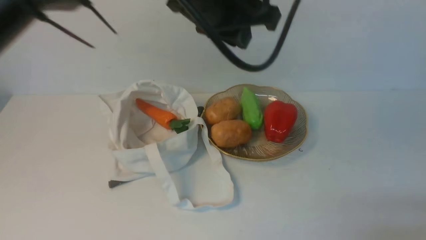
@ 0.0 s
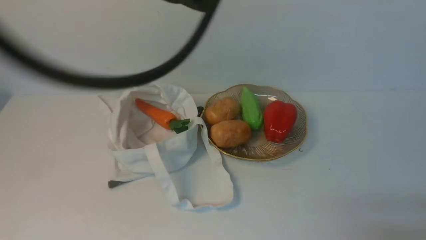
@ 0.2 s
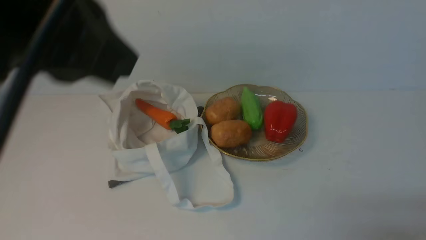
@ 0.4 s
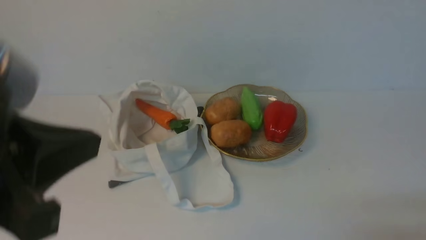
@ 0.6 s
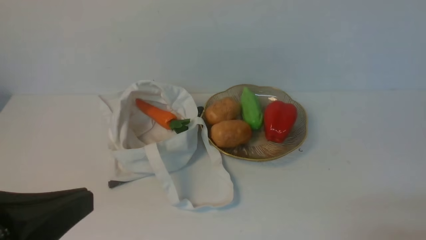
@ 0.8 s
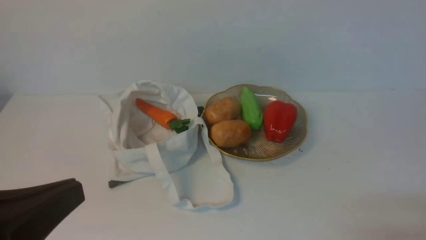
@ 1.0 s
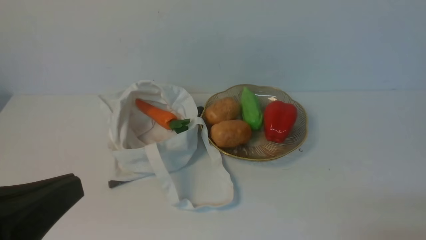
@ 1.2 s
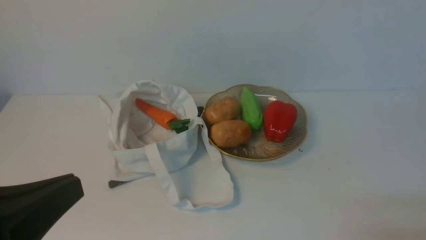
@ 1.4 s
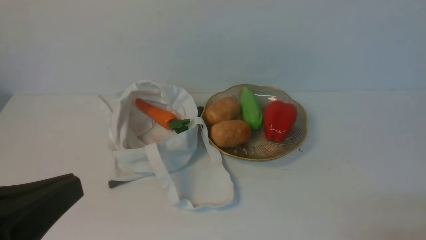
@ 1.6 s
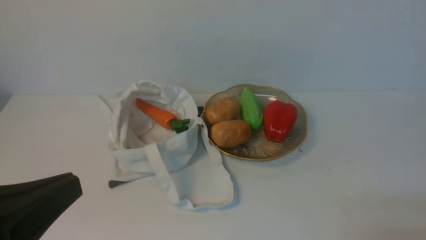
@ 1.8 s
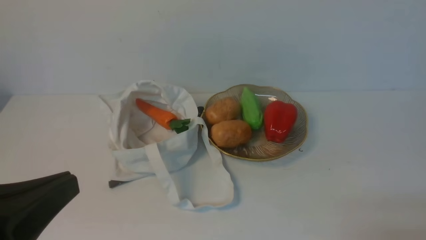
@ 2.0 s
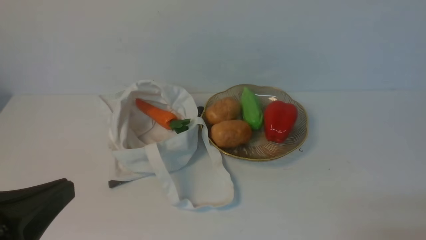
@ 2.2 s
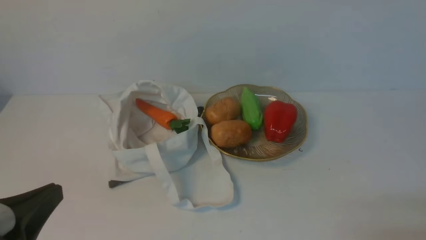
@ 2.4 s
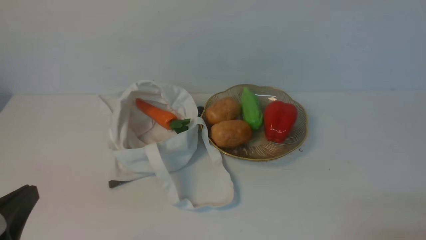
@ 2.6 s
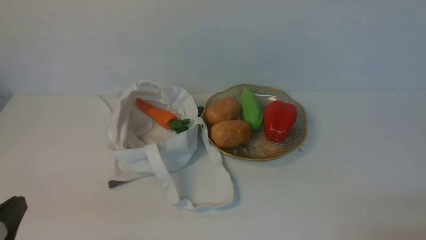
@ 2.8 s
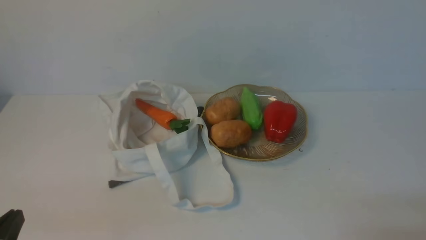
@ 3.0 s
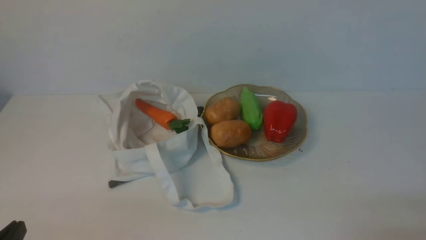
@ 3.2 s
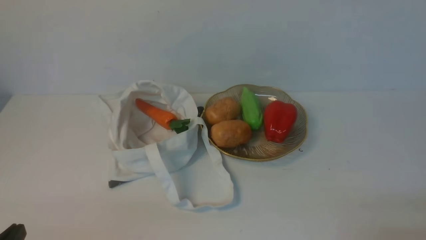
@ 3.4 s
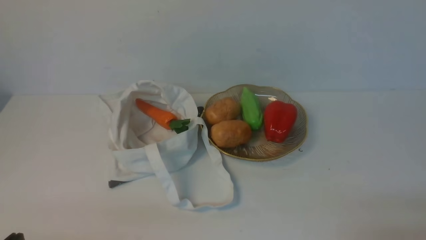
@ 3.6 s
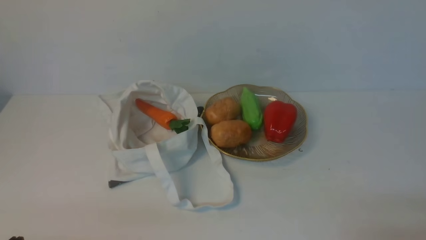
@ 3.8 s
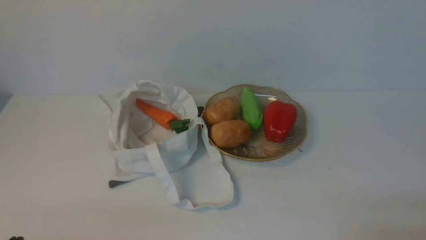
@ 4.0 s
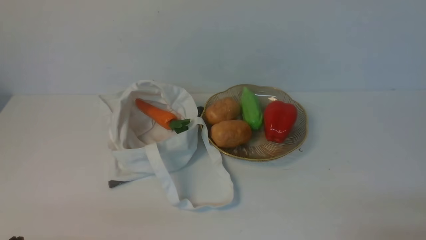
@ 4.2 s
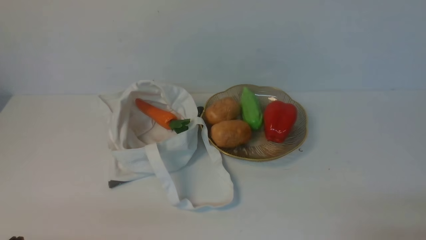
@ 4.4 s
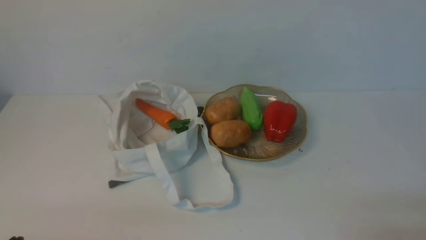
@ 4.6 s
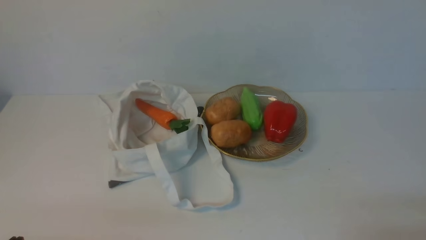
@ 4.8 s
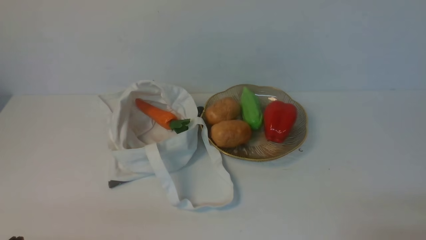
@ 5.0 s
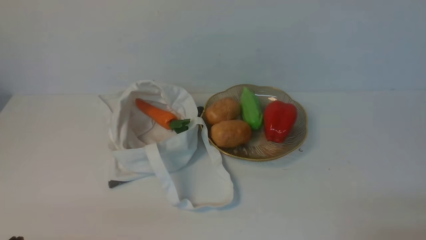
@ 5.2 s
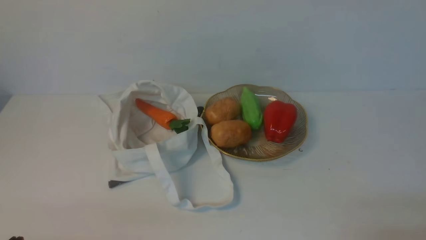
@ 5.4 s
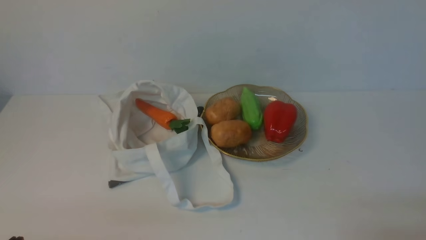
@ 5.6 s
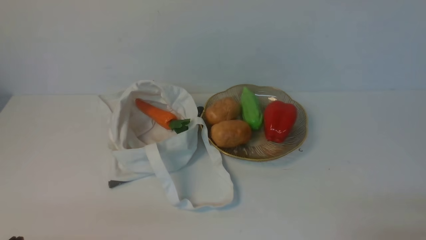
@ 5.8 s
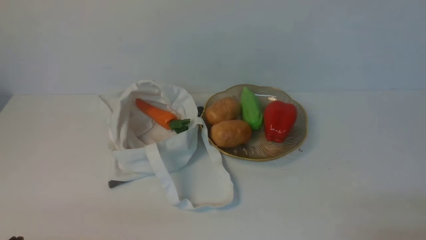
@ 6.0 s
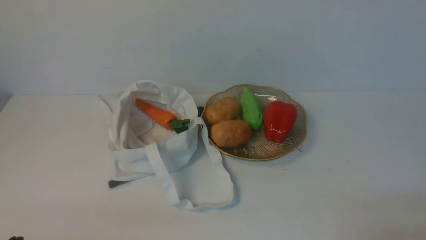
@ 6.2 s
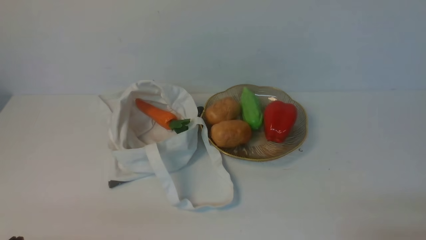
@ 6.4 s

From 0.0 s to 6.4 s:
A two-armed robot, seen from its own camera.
Task of the whole recording: take vegetables from cloth bag on white table place on plate.
From 0.0 s to 1.6 s: The left gripper heads backward and to the left, covering some 35 cm, and closes up.
From 1.6 s to 3.2 s: The left gripper travels downward by approximately 15 cm.
From 4.8 s to 6.4 s: Neither gripper changes place.

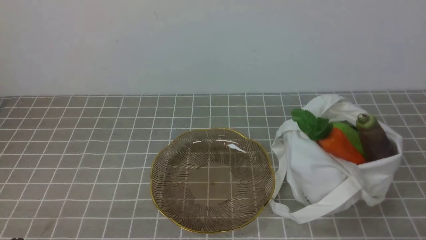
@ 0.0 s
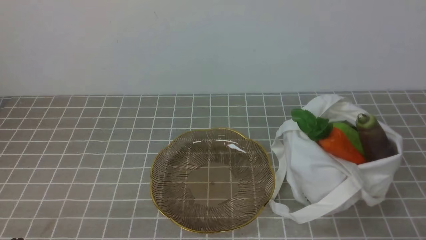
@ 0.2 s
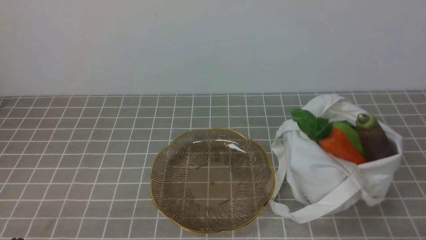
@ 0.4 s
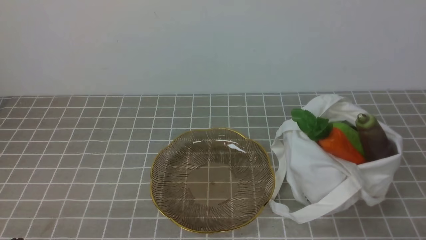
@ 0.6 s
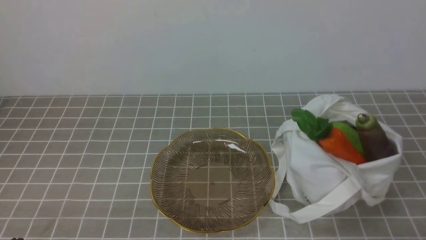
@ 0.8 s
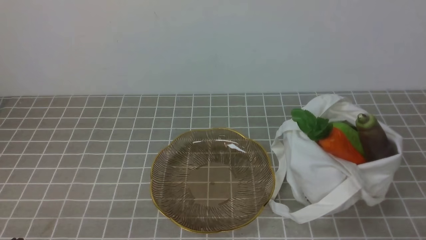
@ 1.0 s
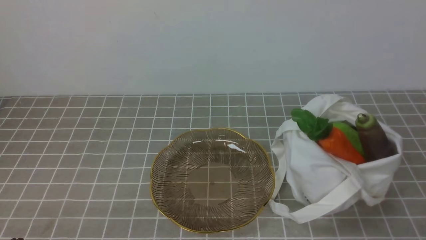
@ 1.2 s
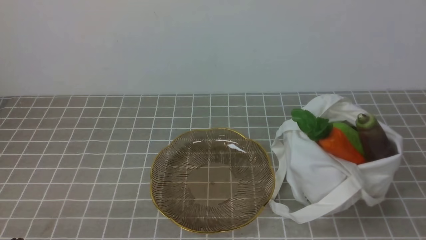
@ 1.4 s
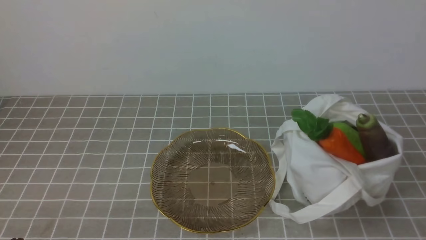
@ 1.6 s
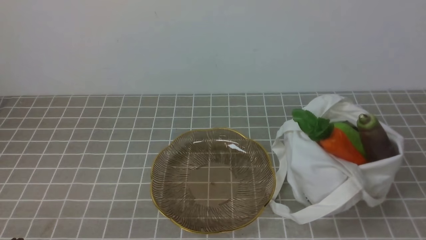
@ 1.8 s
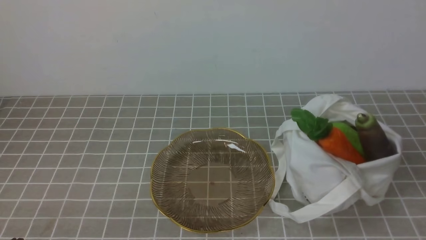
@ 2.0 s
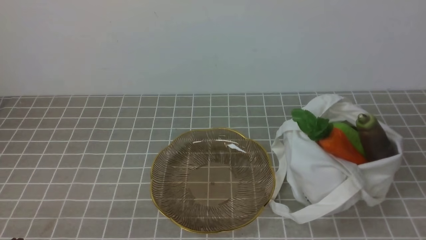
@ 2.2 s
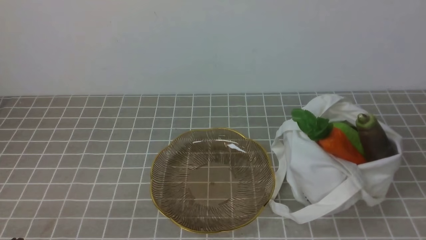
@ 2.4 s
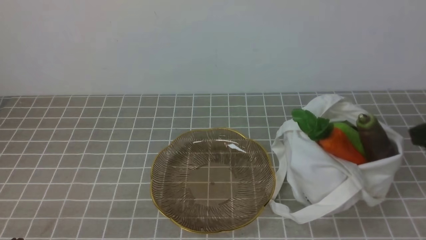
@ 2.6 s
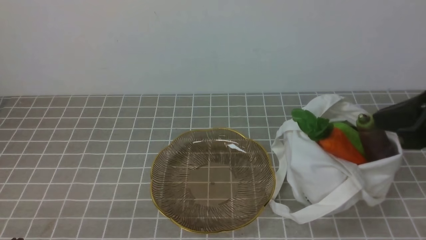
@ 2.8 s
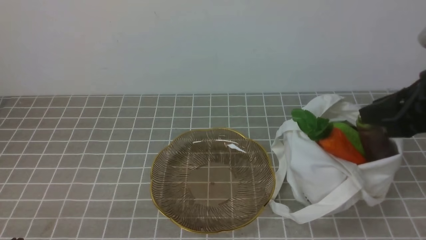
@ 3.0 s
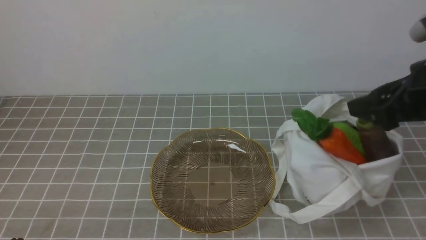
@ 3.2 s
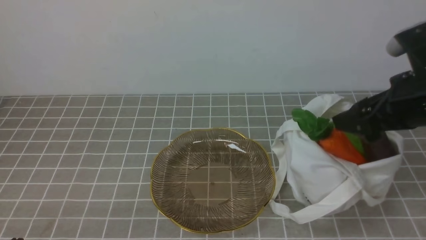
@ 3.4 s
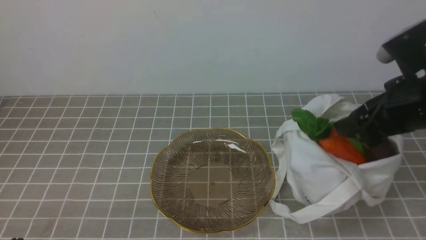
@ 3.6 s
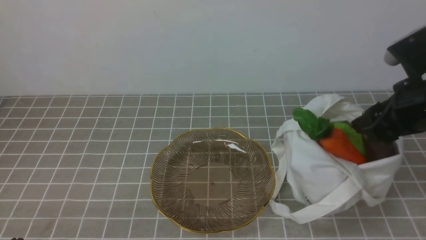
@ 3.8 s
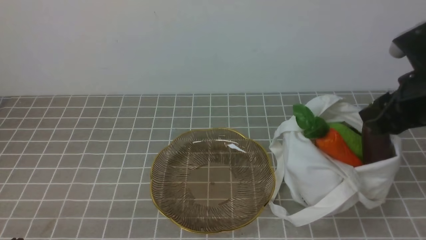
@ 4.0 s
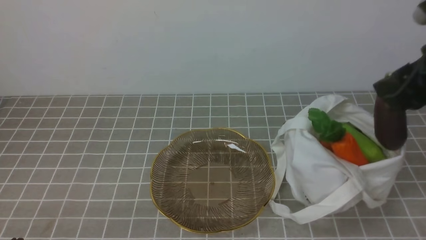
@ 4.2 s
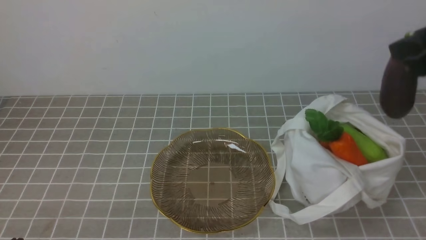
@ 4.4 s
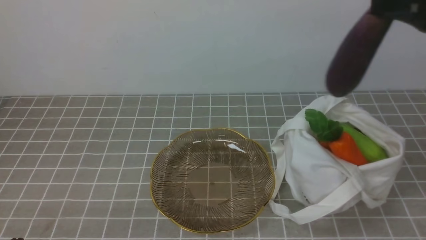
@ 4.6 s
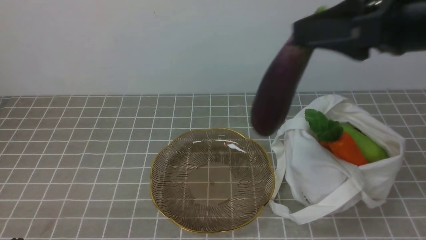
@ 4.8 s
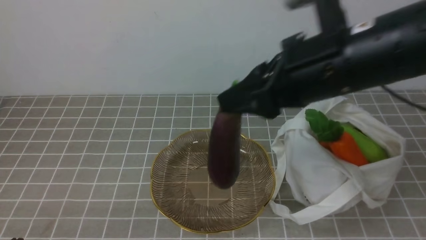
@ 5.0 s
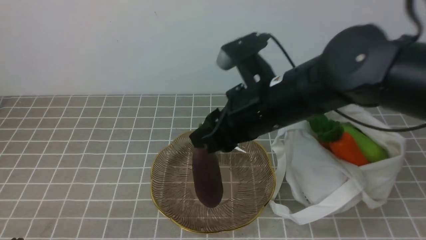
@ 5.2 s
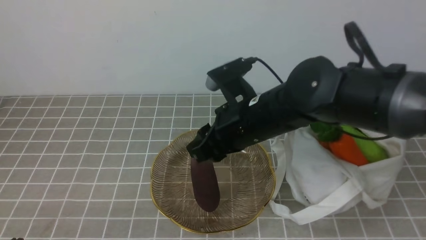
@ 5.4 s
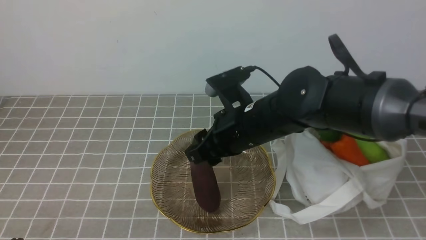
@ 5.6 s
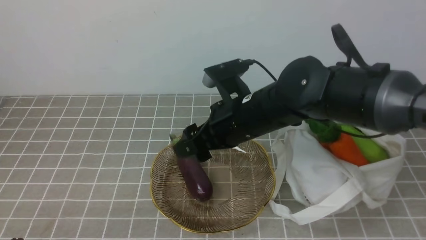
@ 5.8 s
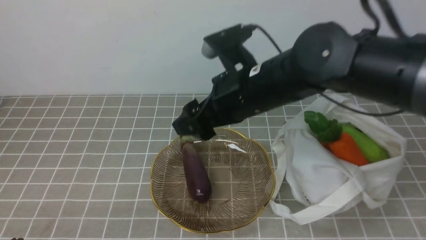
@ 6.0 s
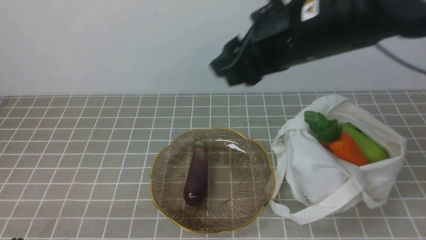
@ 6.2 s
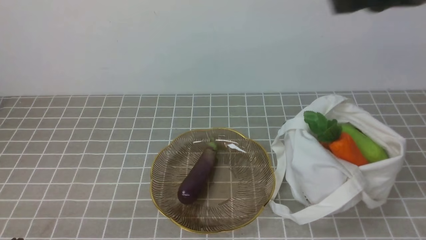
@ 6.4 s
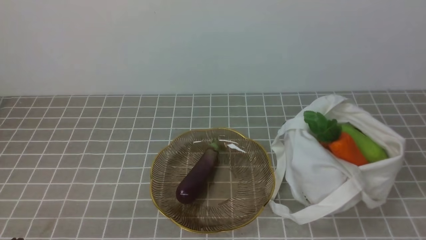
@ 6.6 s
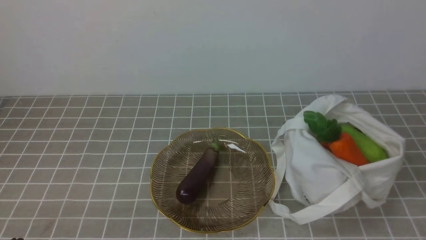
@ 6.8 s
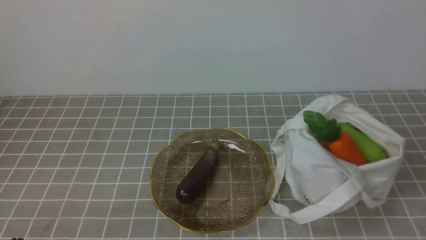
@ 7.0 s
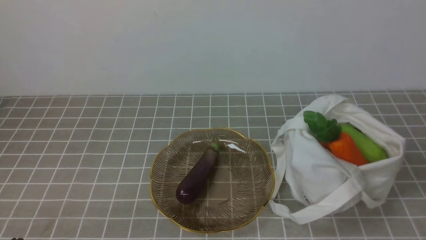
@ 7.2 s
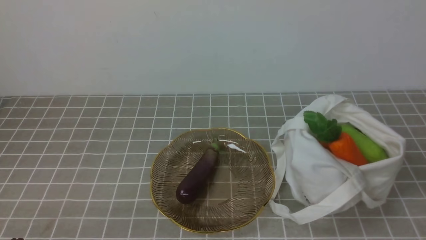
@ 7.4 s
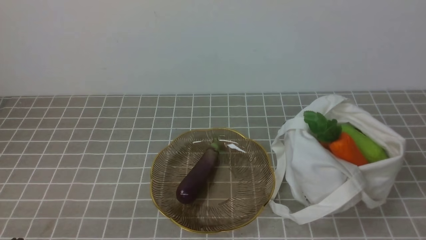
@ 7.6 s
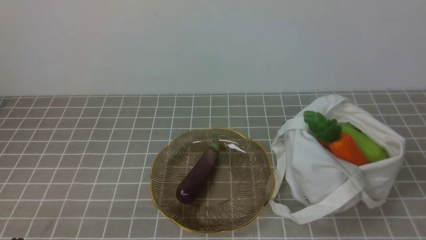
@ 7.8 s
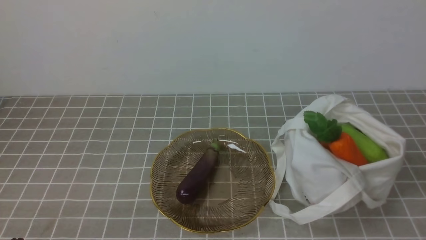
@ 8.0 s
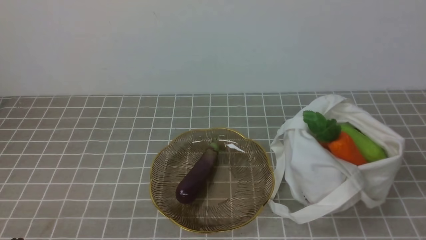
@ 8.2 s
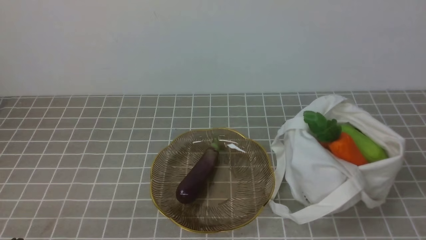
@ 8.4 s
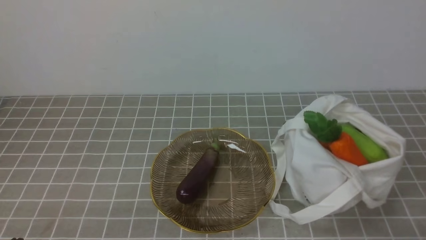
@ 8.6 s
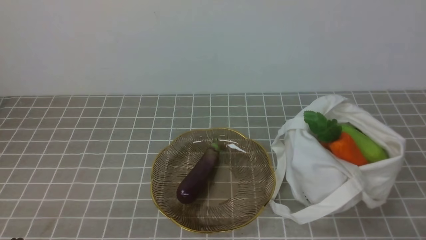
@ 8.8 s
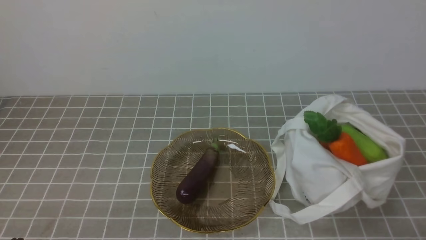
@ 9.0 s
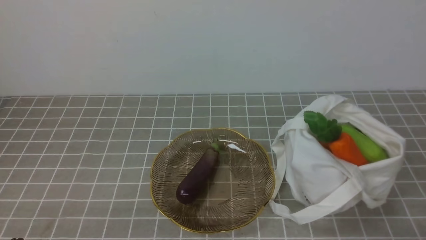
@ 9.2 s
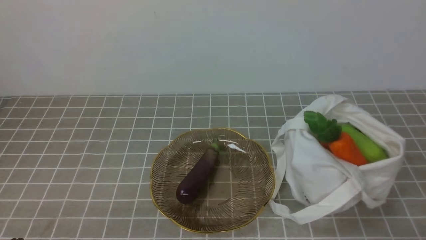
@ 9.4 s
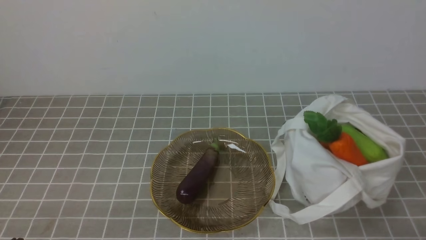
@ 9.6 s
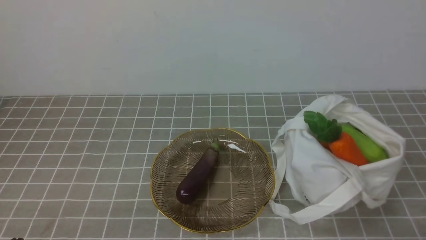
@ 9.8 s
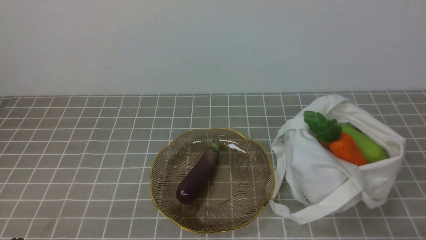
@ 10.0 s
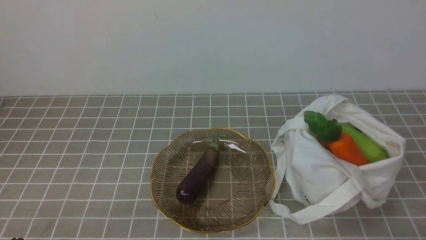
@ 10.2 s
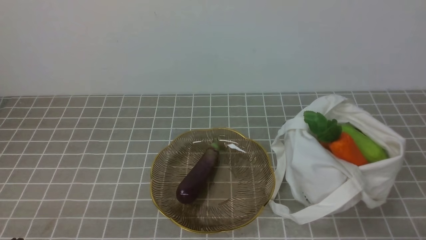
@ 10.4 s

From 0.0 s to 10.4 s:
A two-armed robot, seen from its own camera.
Task of the whole recording: take vegetables from bag on grey coffee tablecloth place on plate.
Step, from 0.0 s to 3.8 s: Grasp the eggplant with right gripper.
Step, from 4.0 s to 6.0 s: Place the eggplant on the plate with right gripper.
From 1.4 s to 3.0 s: The right gripper heads forward and upward, covering roughly 20 cm, and opens.
From 3.0 s to 4.4 s: The right gripper moves upward, some 5 cm, and opens, then closes once more.
From 4.4 s to 6.0 s: The right gripper moves to the left, about 20 cm, and opens.
From 6.0 s to 7.4 s: The right gripper goes about 35 cm backward and to the right, and closes.
From 9.0 s to 10.4 s: Both grippers stay about where they are.
